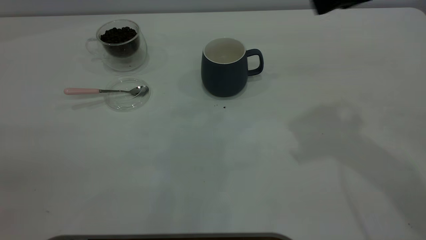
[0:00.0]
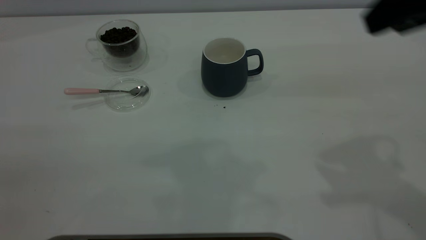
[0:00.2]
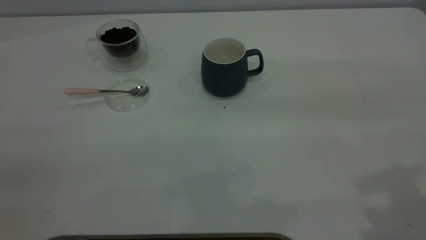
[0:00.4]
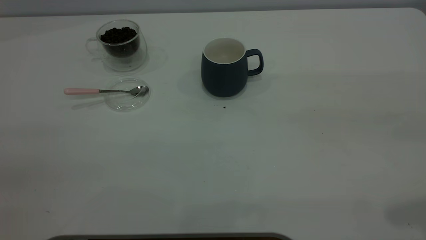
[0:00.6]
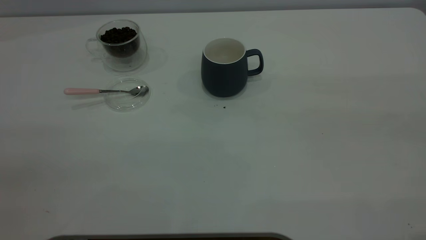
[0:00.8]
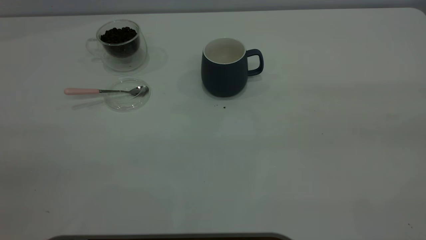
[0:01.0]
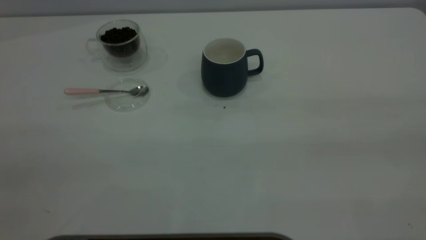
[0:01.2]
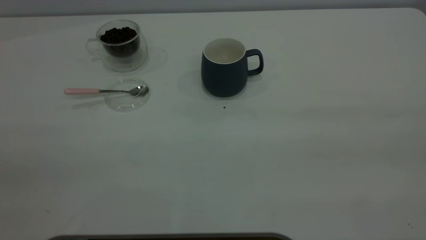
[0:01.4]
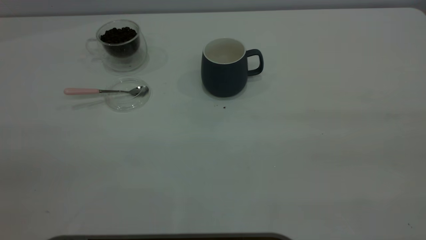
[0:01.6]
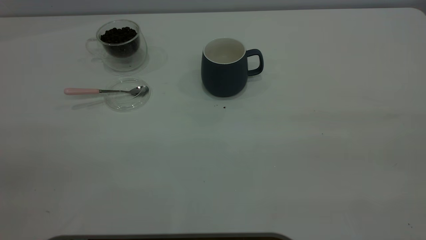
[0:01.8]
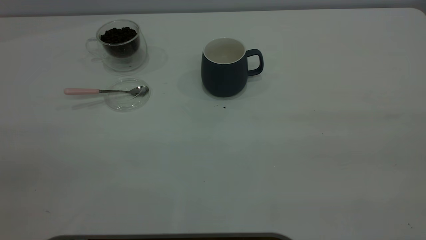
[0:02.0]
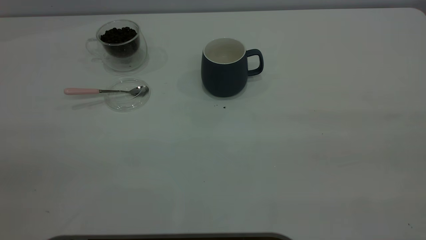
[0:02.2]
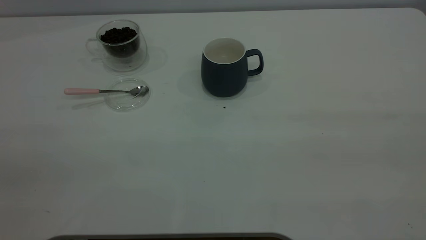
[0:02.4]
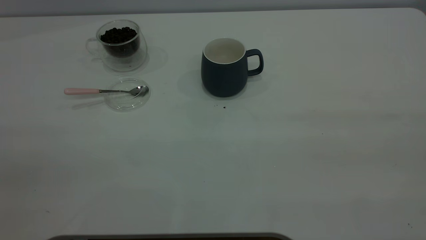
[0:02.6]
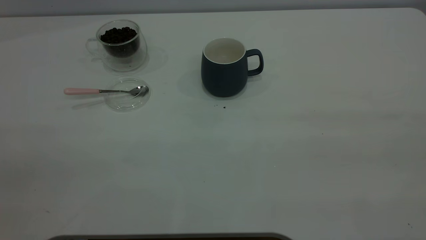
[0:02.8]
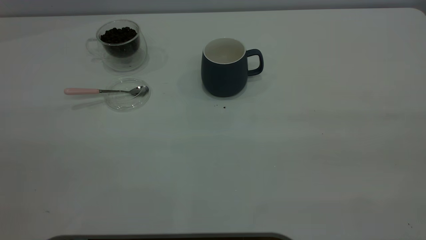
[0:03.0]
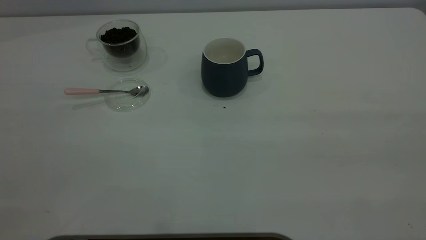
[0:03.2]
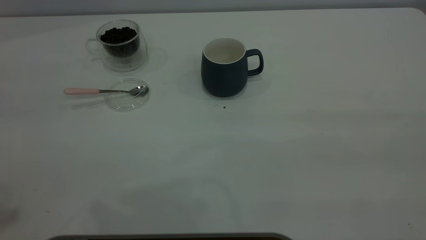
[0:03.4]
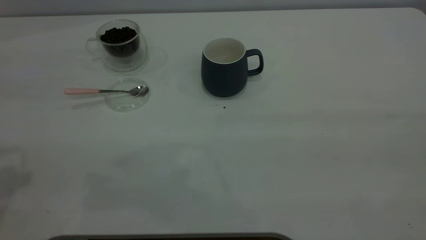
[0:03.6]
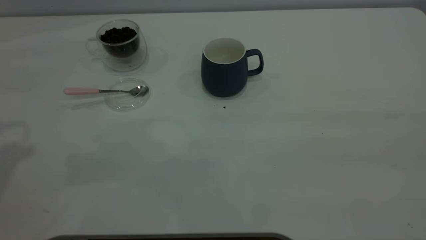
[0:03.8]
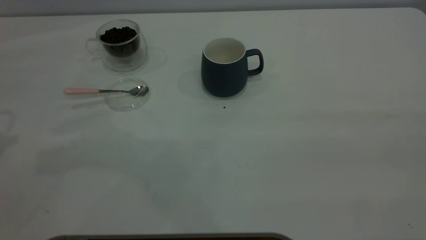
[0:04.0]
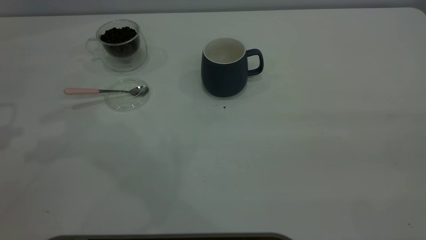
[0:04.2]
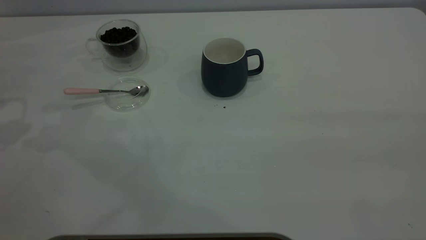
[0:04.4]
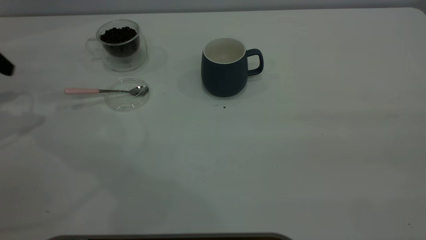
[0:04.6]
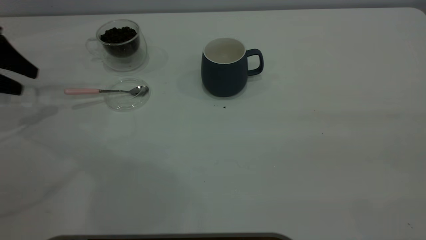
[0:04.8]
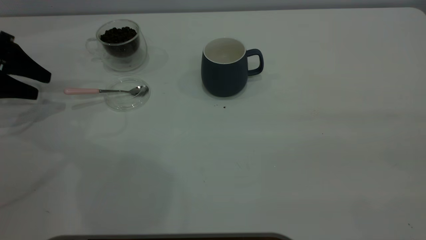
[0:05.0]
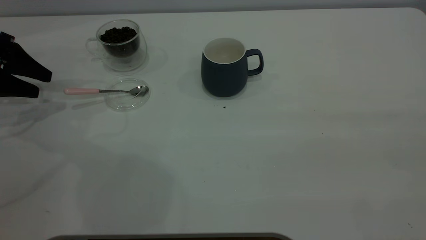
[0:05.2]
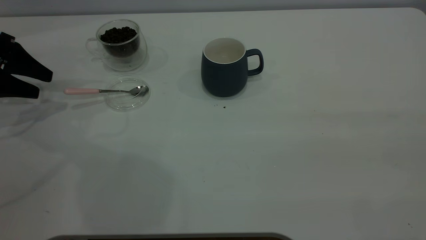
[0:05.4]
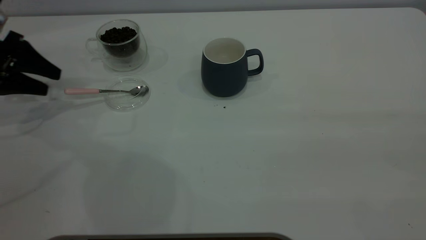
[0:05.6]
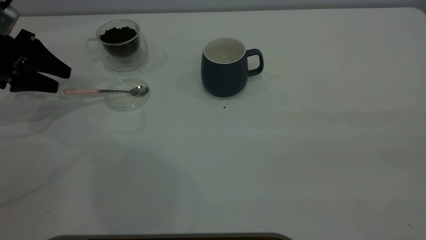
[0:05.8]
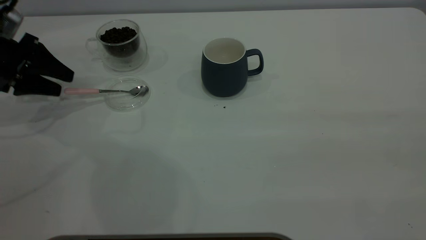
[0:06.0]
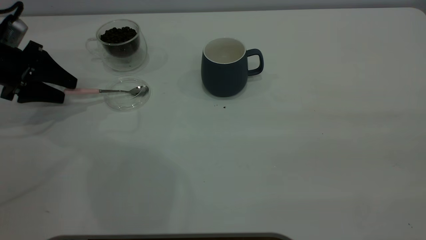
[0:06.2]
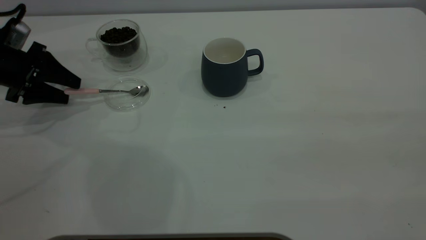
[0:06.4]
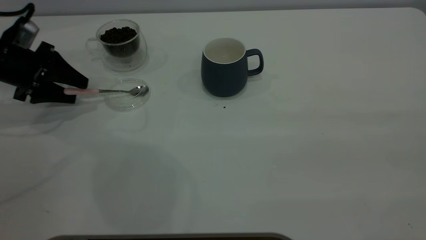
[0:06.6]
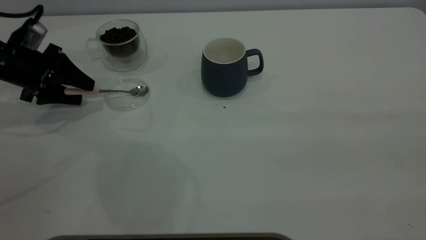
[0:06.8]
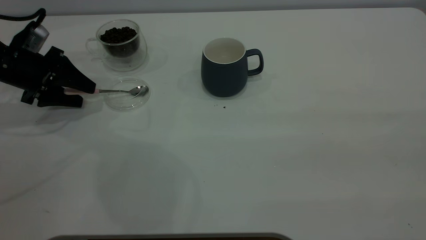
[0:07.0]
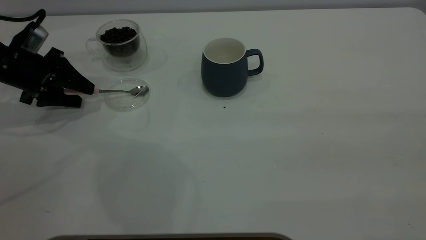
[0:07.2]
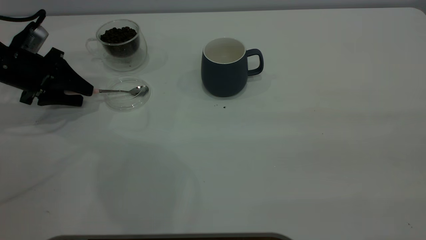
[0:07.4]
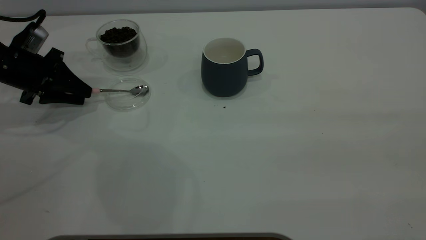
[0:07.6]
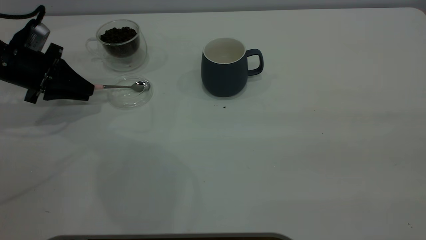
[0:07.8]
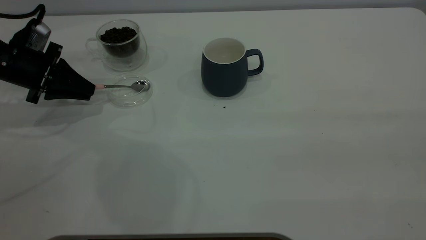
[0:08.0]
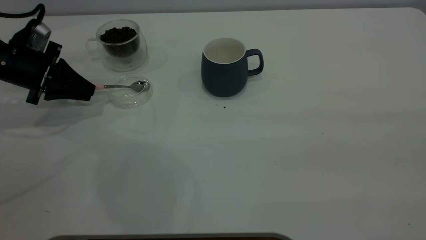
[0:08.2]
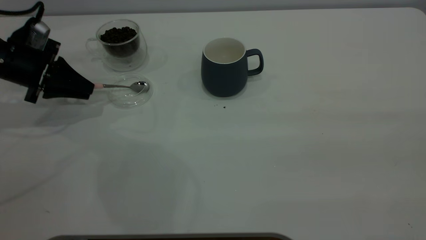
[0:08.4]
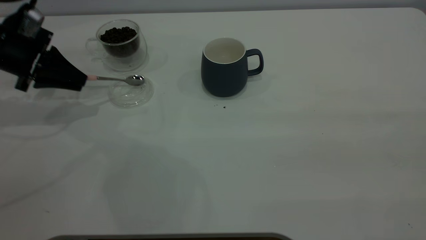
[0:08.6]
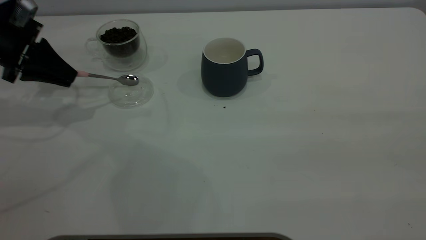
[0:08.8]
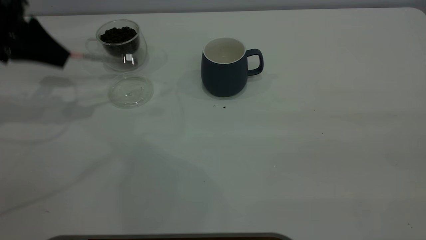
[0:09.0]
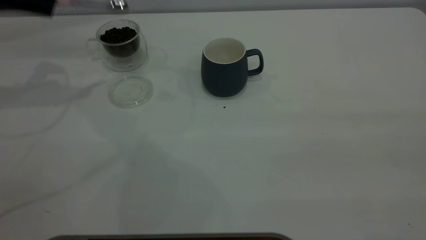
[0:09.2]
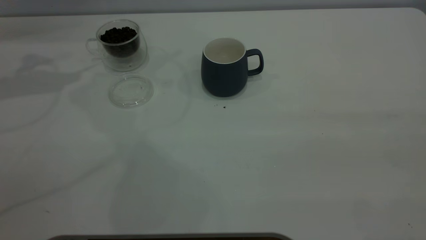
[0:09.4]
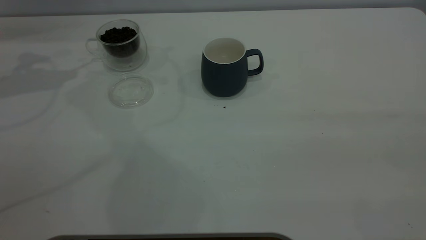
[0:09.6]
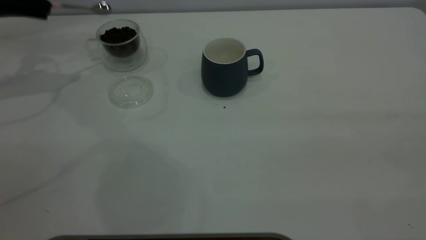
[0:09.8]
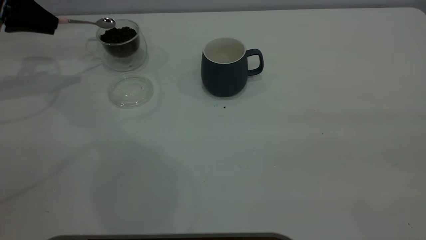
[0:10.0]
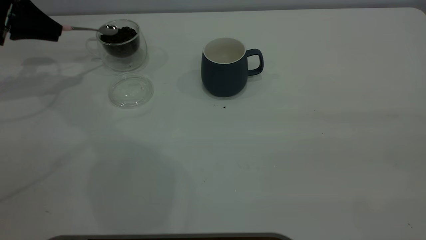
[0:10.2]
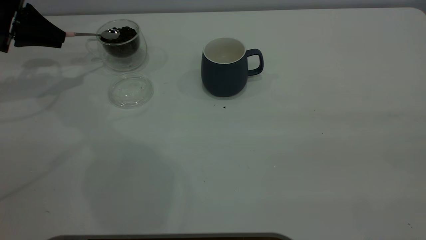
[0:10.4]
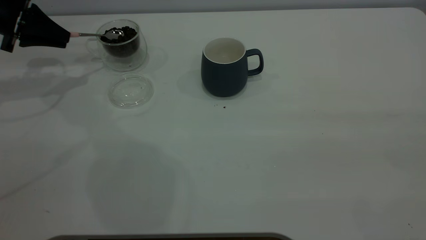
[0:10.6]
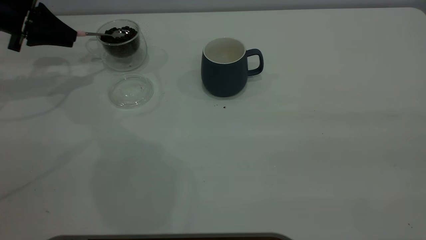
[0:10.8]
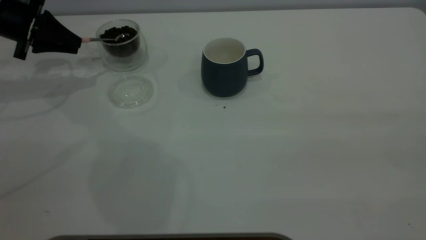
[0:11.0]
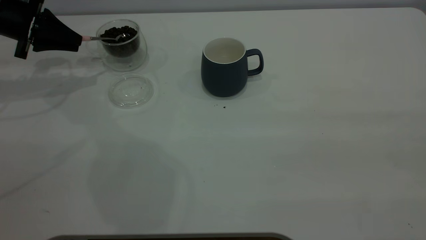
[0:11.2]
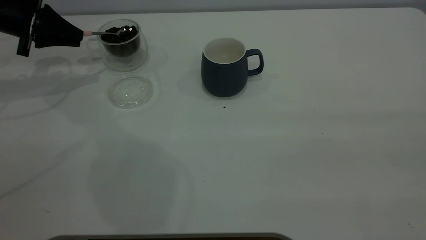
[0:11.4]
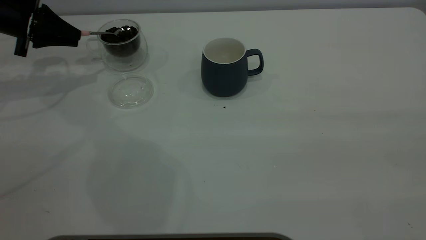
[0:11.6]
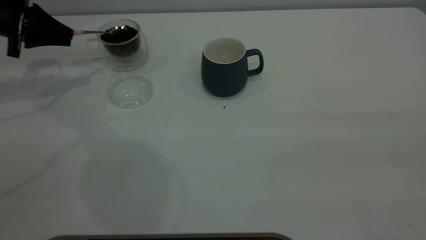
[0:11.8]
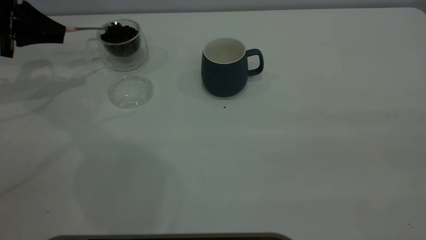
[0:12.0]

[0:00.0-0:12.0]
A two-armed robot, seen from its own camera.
Task of the whole recording: the right gripper place the grey cup in the center of the table, the left gripper take the pink spoon from the cup lid and scoop out the coffee beans from the coffee cup and put them into the grey cup, the left gripper put the spoon back into the cup lid.
Step, 0:00.0 to 0:08.8: Pick up the spoon.
0:04.4 to 0:06.0: The left gripper moves downward and forward, roughly 15 cm.
0:06.0 to 0:07.6: The left gripper closes its fingers.
0:07.6 to 0:09.0: The left gripper moves upward, about 10 cm.
0:09.0 to 0:10.4: The left gripper goes approximately 5 cm forward.
0:10.4 to 0:12.0: The grippers stay close to where they were, moving slightly.

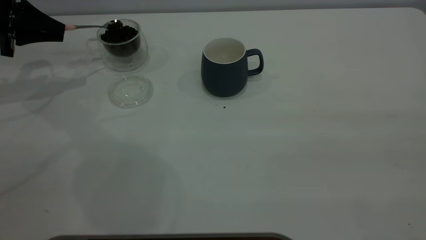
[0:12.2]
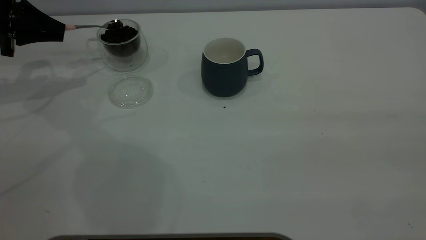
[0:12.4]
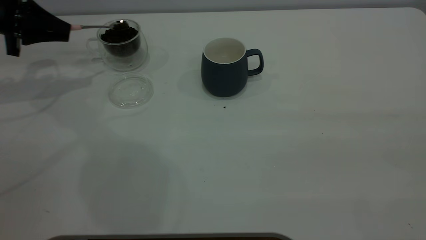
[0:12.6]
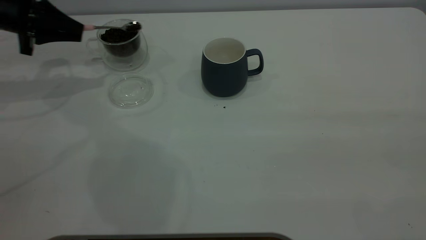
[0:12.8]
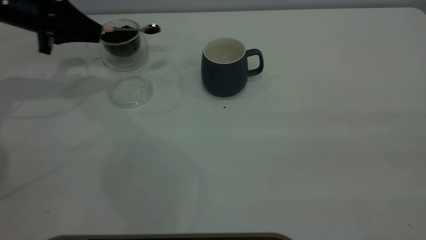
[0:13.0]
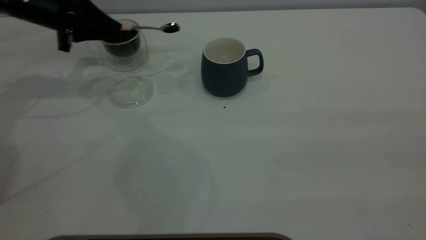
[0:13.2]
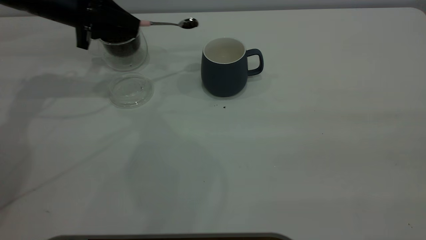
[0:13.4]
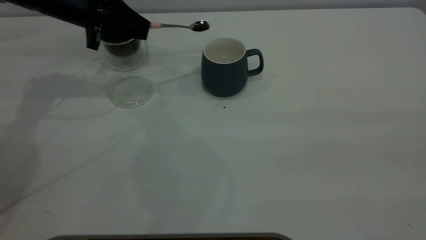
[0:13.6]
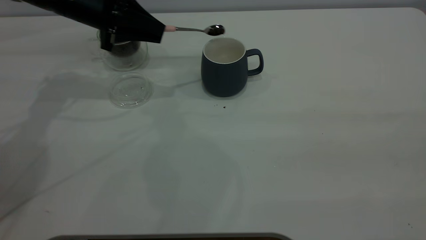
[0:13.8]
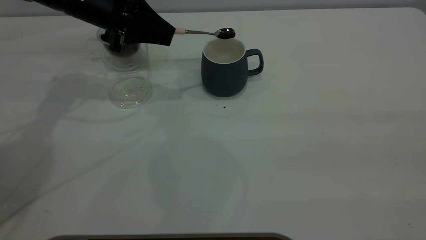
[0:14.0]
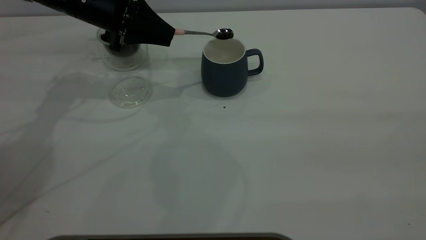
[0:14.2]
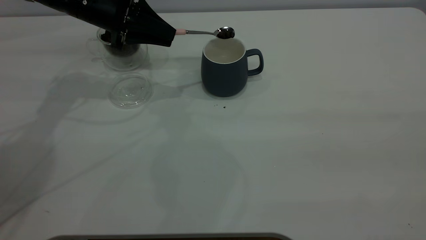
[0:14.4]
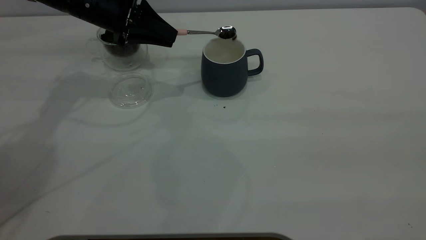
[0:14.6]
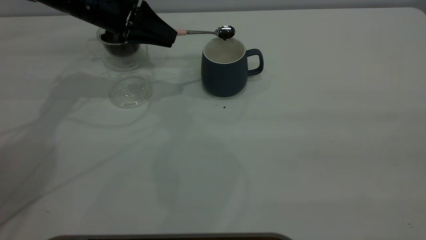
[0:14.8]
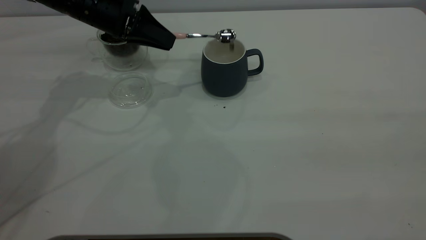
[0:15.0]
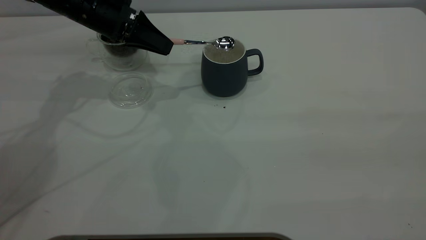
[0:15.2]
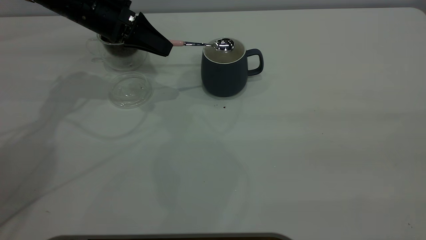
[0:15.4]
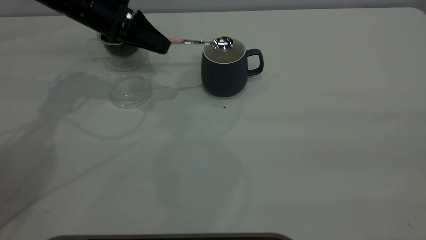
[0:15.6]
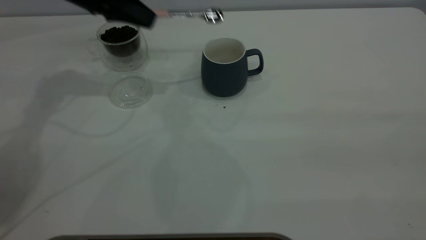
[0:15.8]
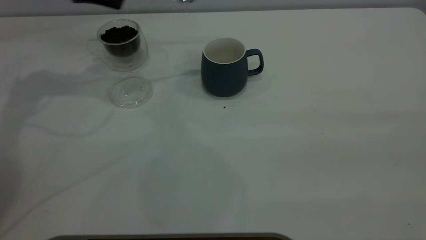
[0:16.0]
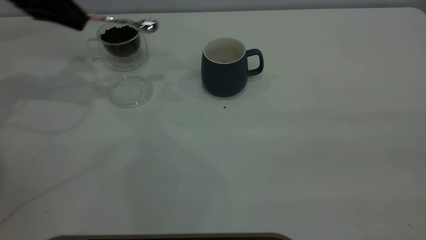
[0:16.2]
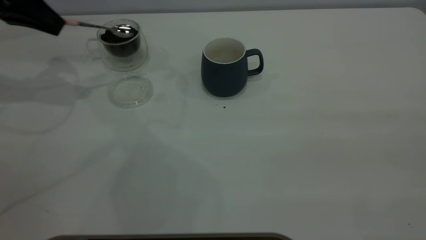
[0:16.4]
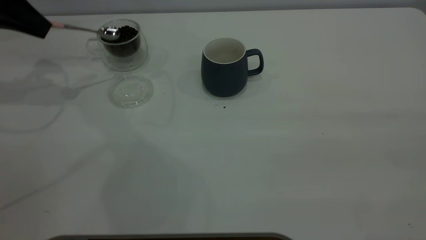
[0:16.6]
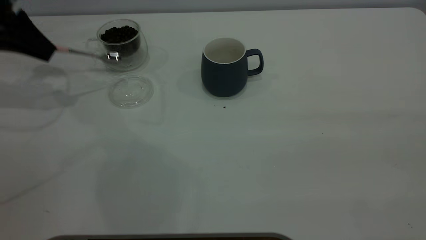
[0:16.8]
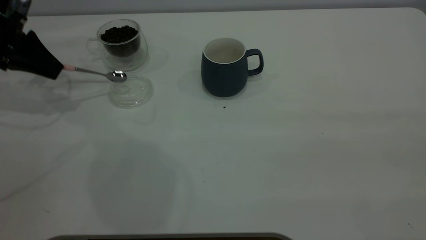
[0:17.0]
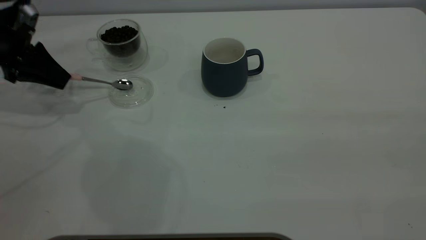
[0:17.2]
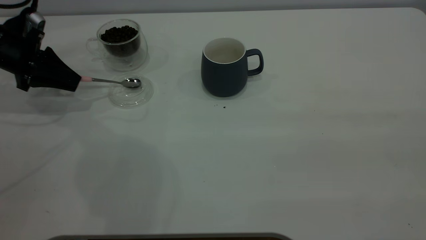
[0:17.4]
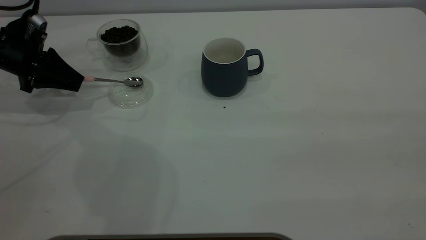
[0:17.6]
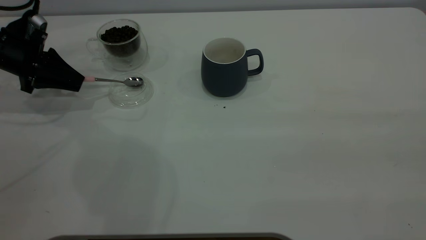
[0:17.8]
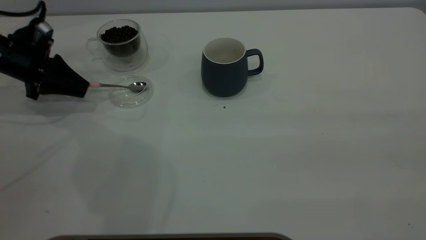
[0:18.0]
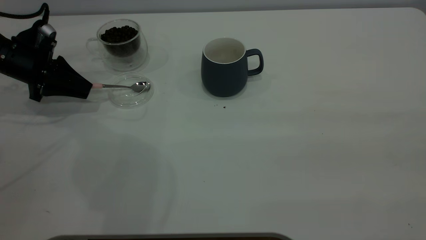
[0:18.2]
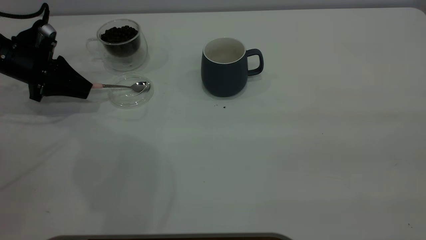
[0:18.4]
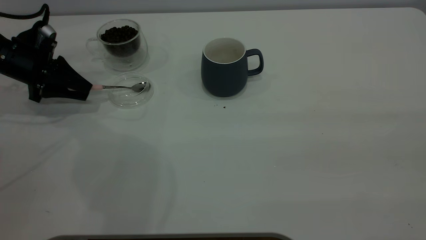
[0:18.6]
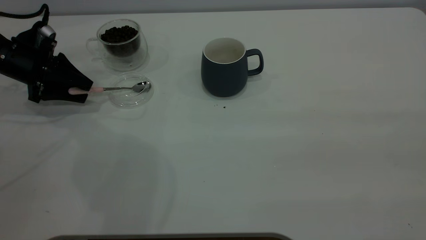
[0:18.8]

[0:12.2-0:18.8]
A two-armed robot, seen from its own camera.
Task of the whole recording: the right gripper place the grey cup in the center of the table, the left gripper take the pink spoon from the cup lid and scoop out the coffee beans from the coffee cup and put them into the grey cup, the left gripper put the spoon back into the cup lid.
Step, 0:12.2 to 0:15.6: Scoop a spoonful of beans into the cup.
0:12.2 to 0:13.8: The left gripper moves to the right, roughly 20 cm.
0:15.4 to 0:17.2: The left gripper travels to the left by approximately 15 cm.
0:17.2 to 0:18.8: The left gripper opens up.
